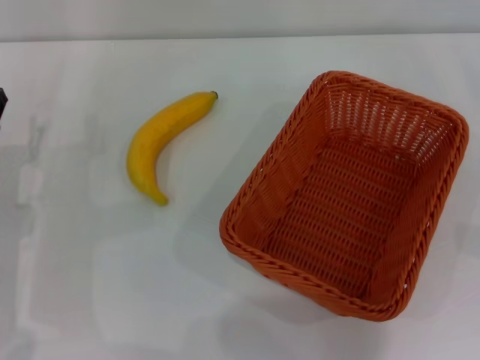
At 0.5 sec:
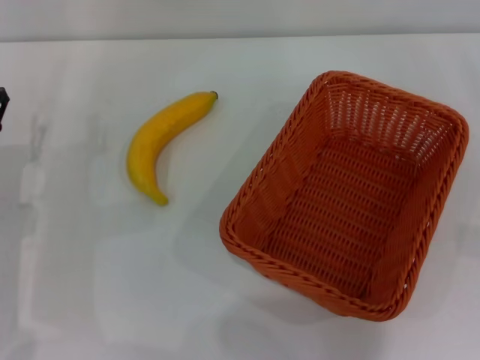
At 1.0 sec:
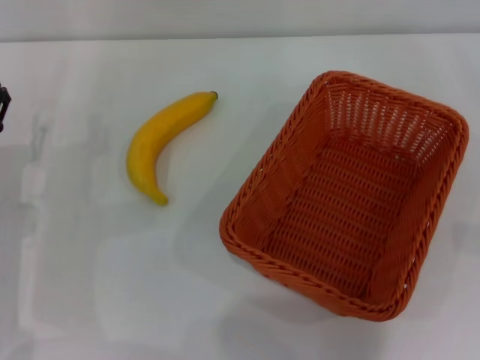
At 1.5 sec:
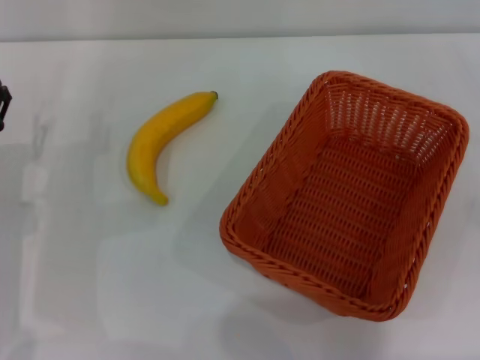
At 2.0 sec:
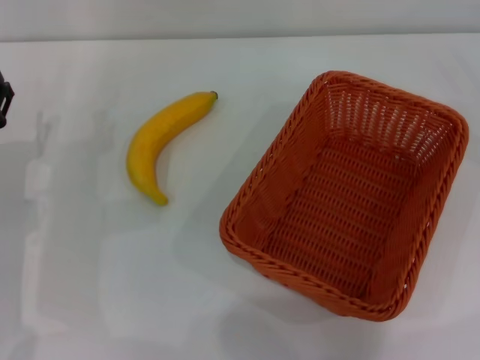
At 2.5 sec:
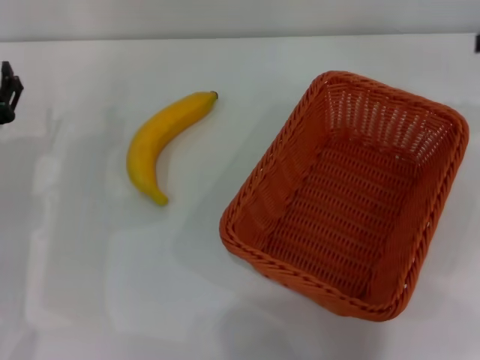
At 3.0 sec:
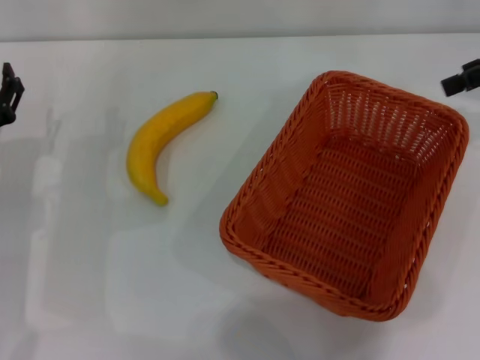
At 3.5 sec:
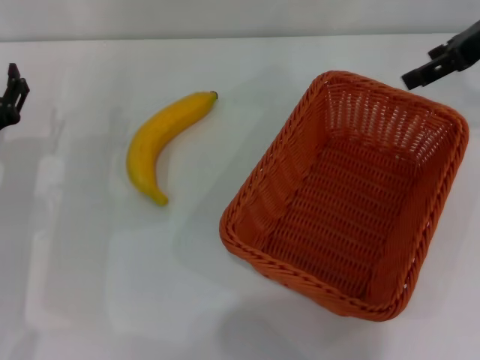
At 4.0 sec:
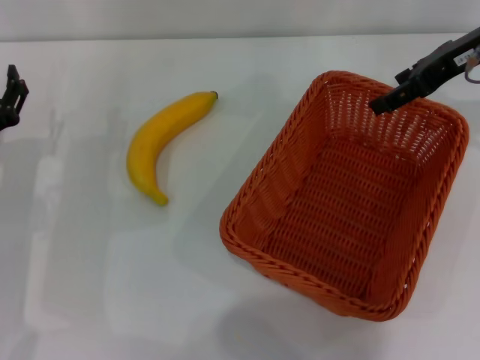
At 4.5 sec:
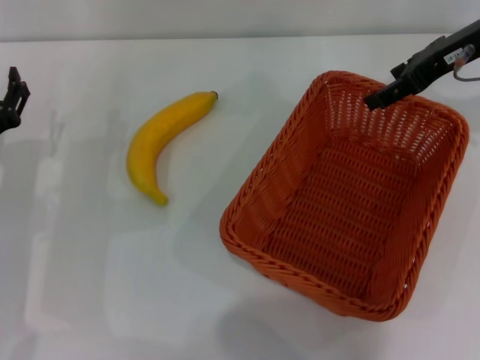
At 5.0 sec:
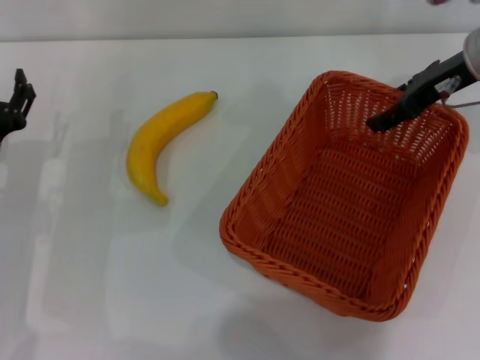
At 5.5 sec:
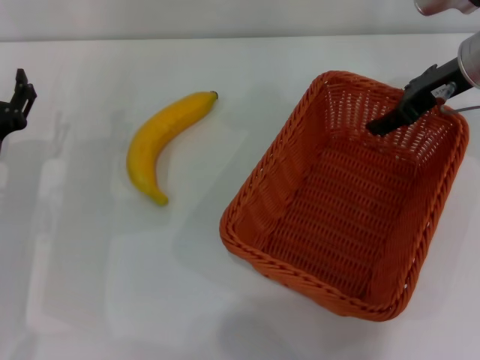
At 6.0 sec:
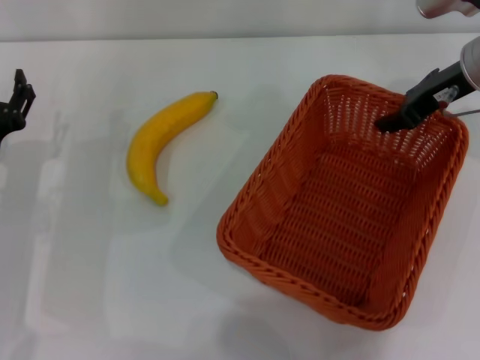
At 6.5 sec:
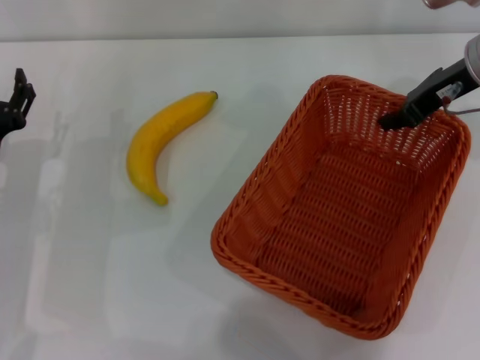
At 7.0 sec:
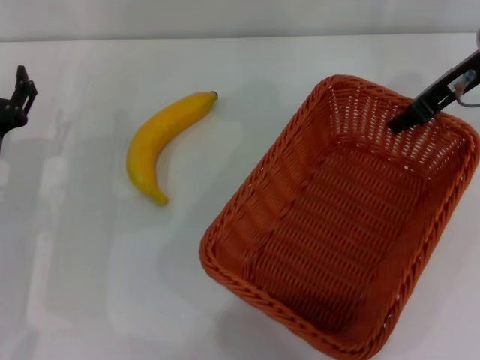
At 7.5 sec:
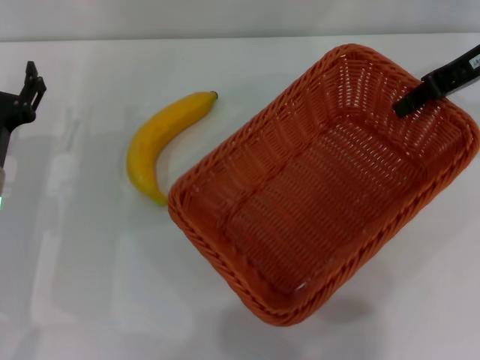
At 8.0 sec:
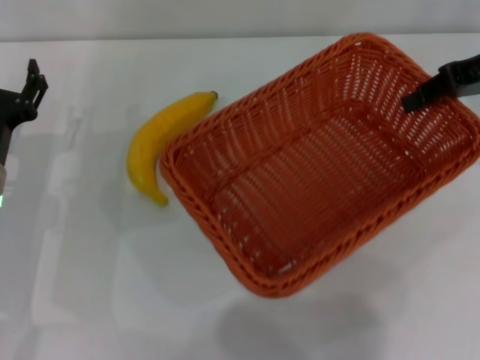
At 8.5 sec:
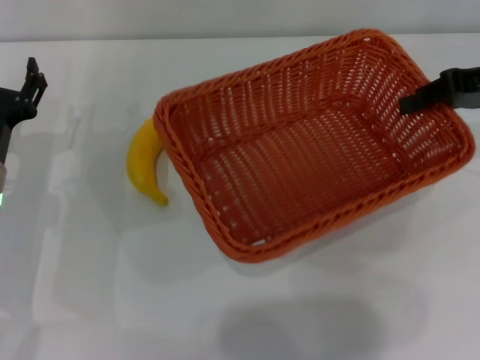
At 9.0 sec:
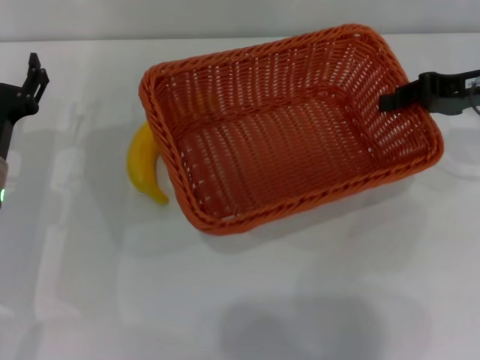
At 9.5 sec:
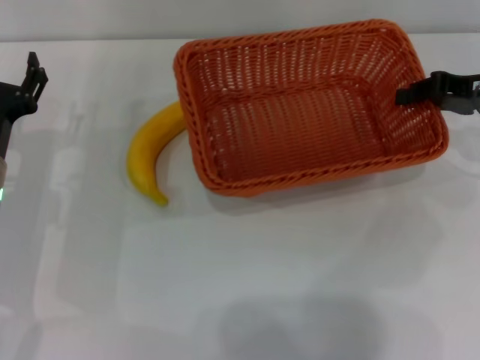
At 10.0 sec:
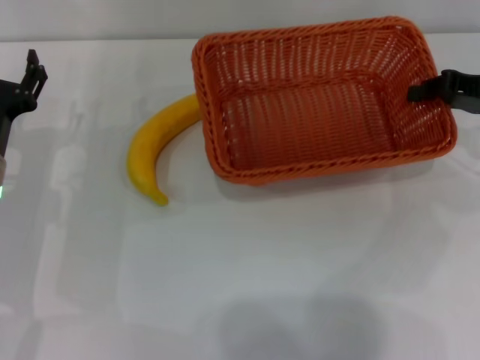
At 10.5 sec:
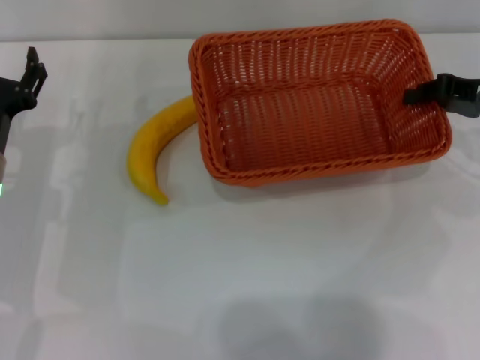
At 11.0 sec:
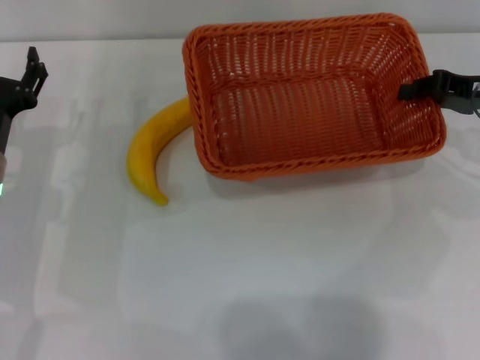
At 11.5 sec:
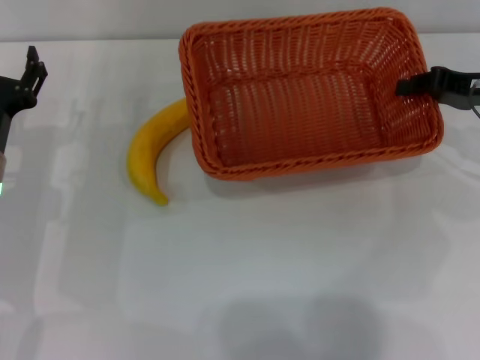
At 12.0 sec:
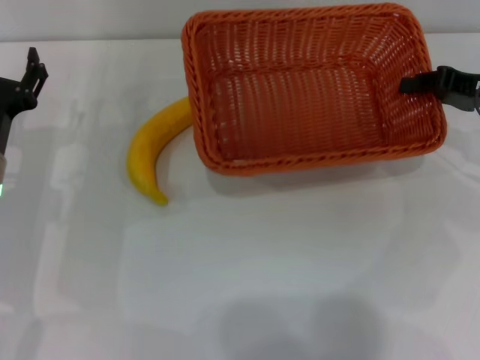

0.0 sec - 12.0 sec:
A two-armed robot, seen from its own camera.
Step, 0.0 sec - 7.5 sec: Pick up the light basket with the right gripper.
2.0 sec - 4.0 sec: The right gripper travels to the left and upward by roughly 20 cm.
4.0 sec - 6.0 sec: The right gripper closes its fingers.
6.0 sec - 8.0 sec: The right gripper travels to the right by approximately 5 cm, and closes.
8.0 sec - 10.0 sec: The right gripper is displaced downward by roughly 10 cm.
10.0 sec - 12.0 sec: The grippers move only a little.

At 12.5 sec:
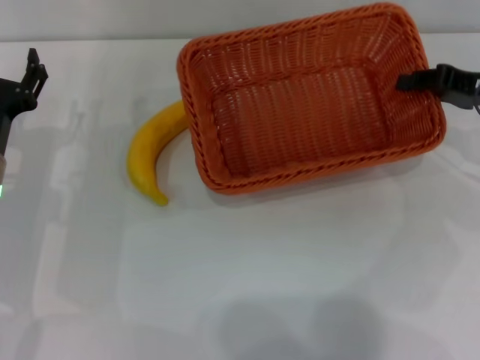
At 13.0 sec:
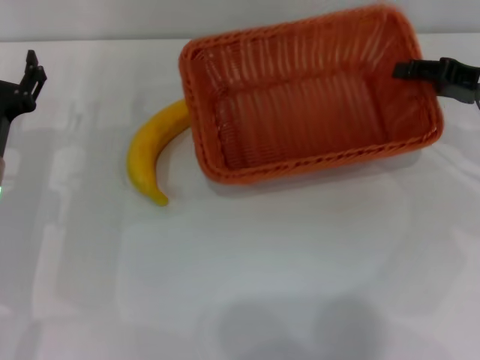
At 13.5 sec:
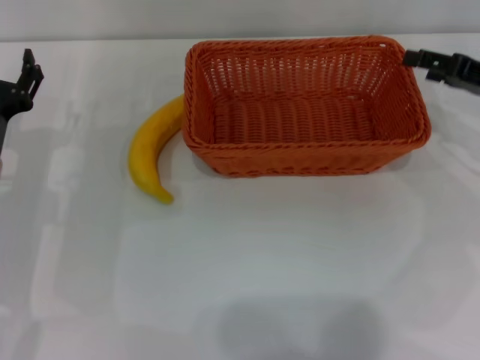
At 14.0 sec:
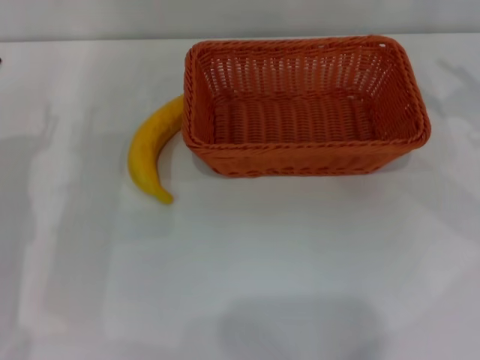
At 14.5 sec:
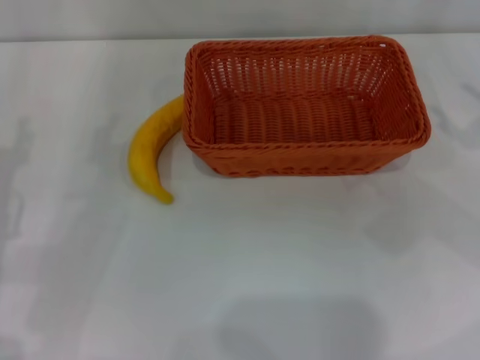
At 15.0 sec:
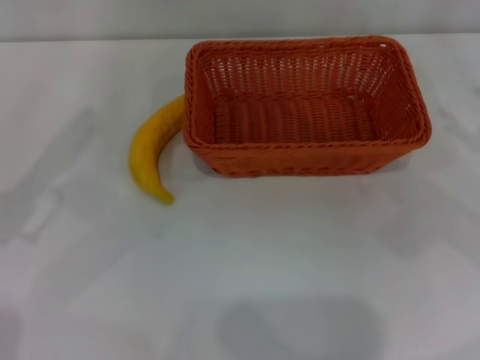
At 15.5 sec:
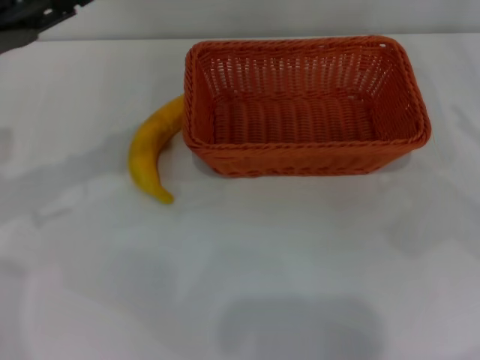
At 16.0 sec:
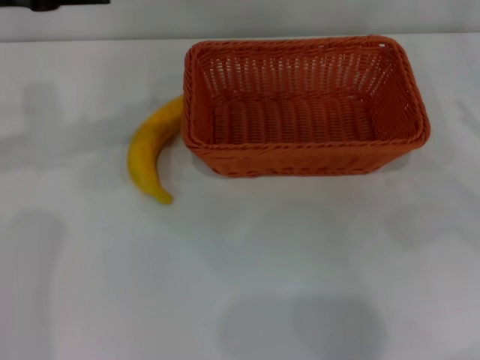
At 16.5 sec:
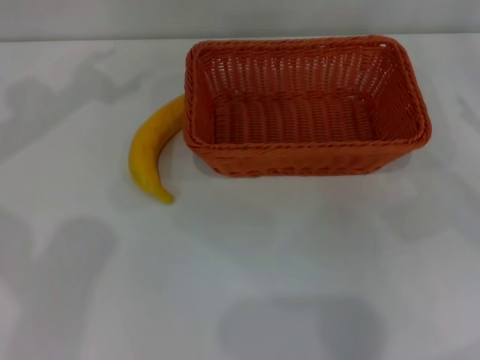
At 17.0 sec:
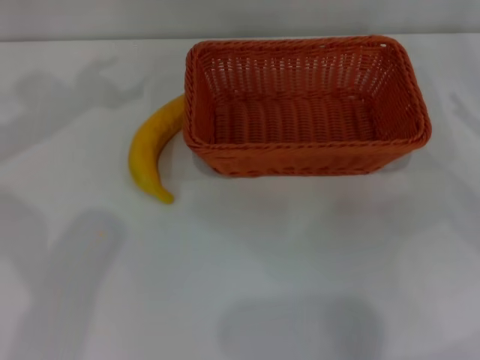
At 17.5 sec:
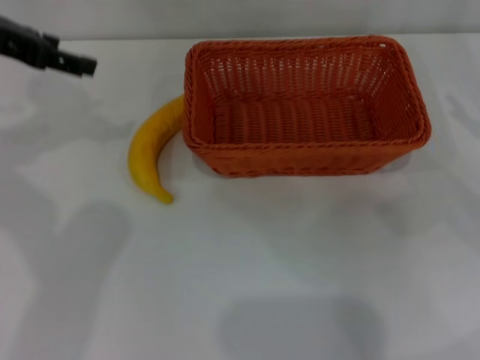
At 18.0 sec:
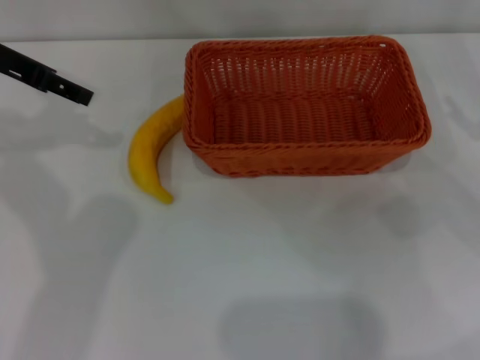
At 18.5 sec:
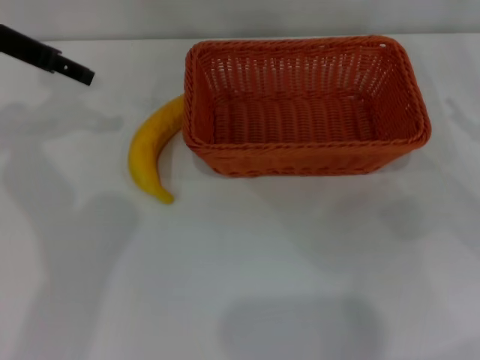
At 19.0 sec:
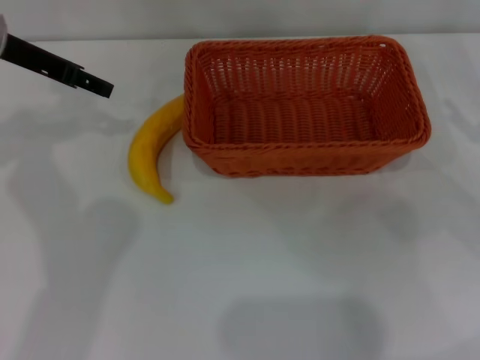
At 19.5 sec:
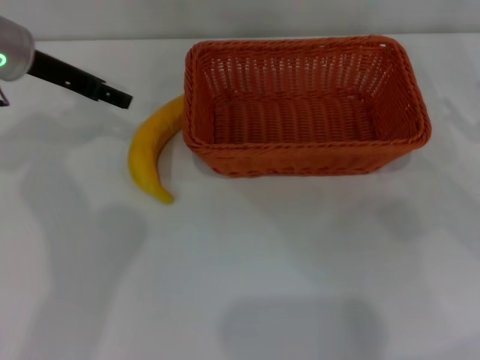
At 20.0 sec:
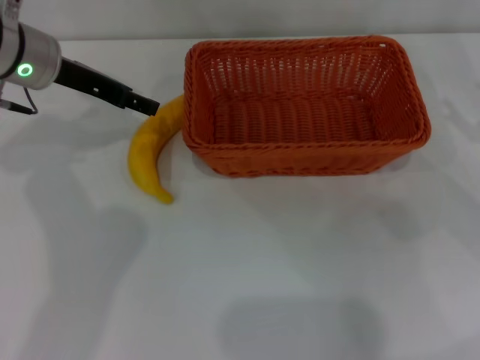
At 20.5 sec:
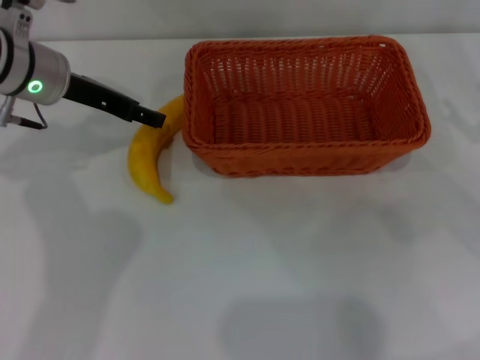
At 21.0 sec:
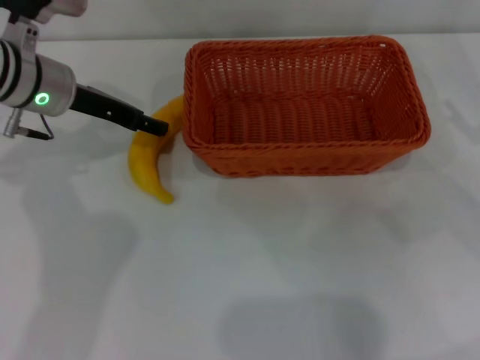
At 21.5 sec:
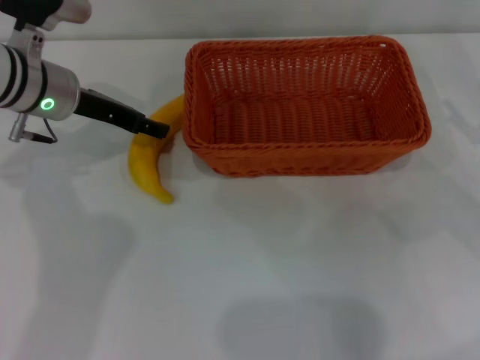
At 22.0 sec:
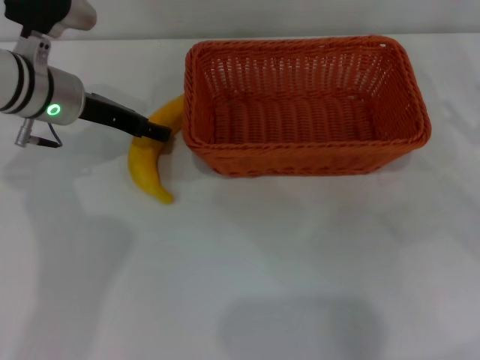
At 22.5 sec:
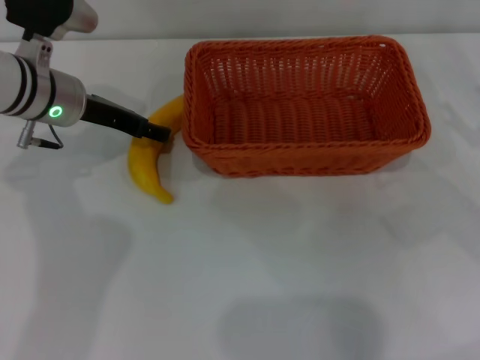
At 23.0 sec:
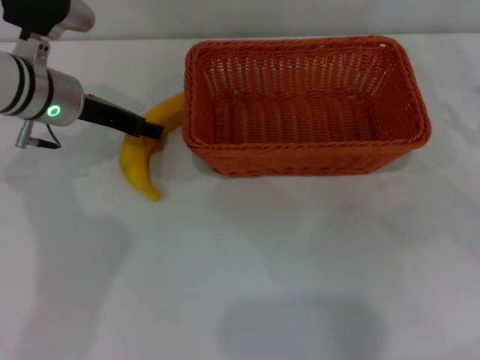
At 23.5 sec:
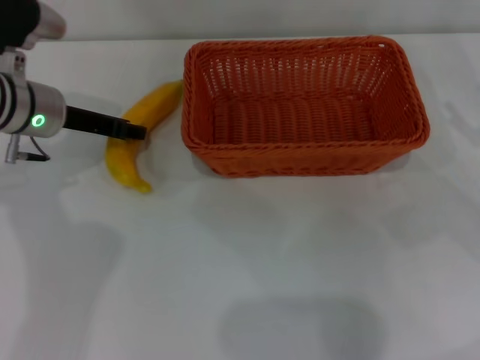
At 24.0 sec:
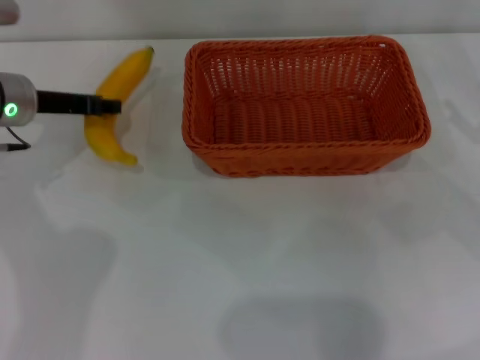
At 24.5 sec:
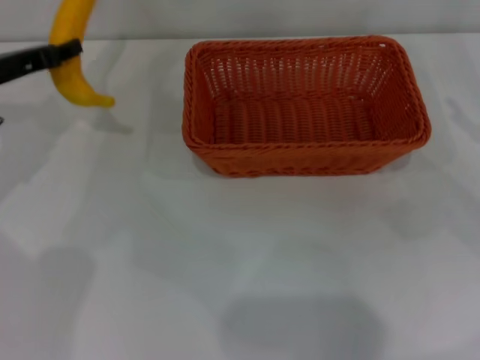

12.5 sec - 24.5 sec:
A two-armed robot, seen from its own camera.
Step, 13.5 sec - 24.0 sec: Pick up the banana with the left gripper.
12.5 sec - 14.5 sec: The right gripper heads backward and to the right, covering approximately 10 cm, and opens up. Meanwhile the left gripper travels backward by some 5 cm.
14.5 sec - 16.5 sec: The left gripper moves upward and forward, about 20 cm.
16.5 sec - 18.5 sec: The left gripper changes place by roughly 5 cm.
18.5 sec - 20.5 sec: The left gripper heads downward and to the right, covering roughly 10 cm.
20.5 sec - 22.5 sec: The grippers stay close to where they were, moving slightly.
22.5 sec - 24.5 sec: The left gripper goes roughly 10 cm to the left, and closes its fingers.

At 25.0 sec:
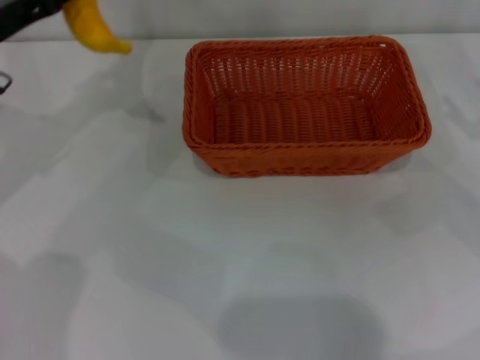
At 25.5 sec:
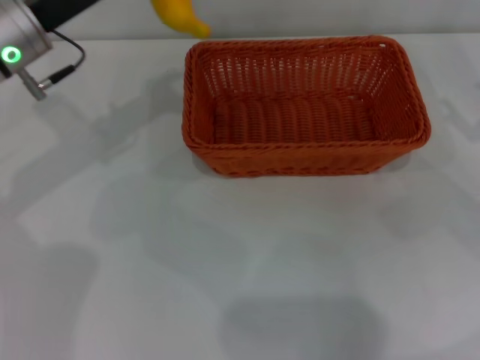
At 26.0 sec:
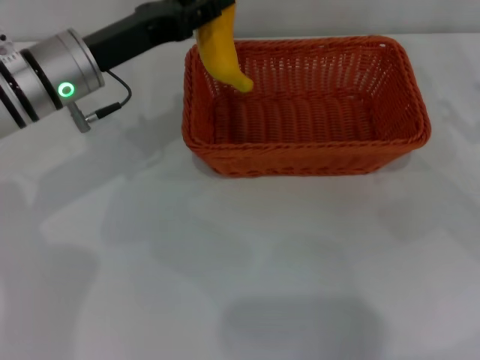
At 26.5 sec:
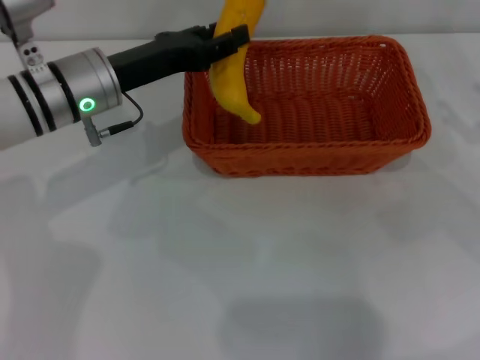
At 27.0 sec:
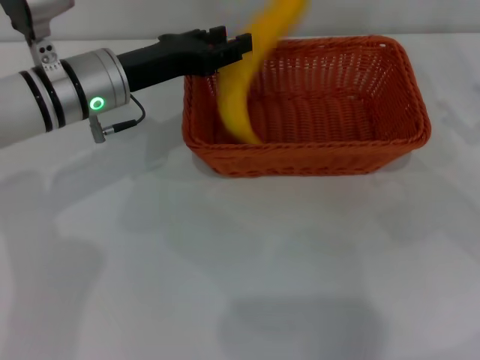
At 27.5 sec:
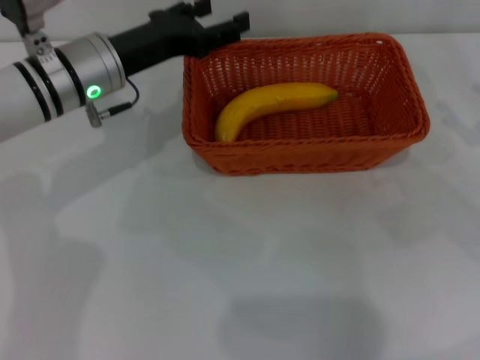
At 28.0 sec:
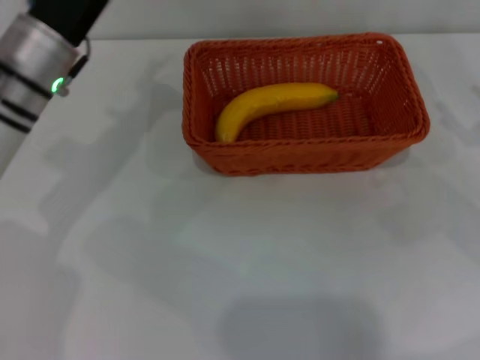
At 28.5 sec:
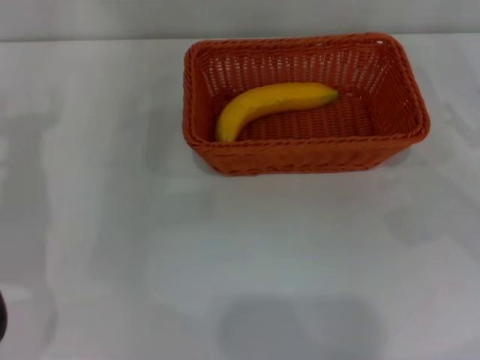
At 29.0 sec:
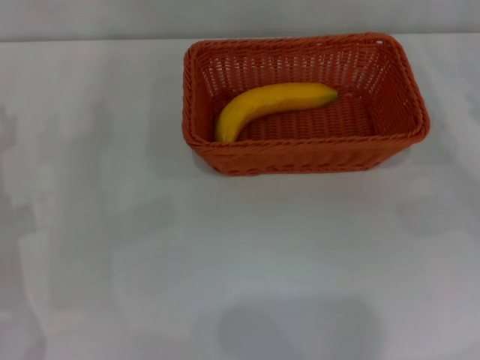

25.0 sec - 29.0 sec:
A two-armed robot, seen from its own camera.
Step, 25.0 sec - 27.0 sec: Place the banana into the light basket with the left gripper.
25.0 sec - 27.0 sec: The left gripper shifts some 10 cm to the right.
27.0 sec - 29.0 sec: The left gripper goes some 15 cm to the left, backward and downward, and opens its fingers.
